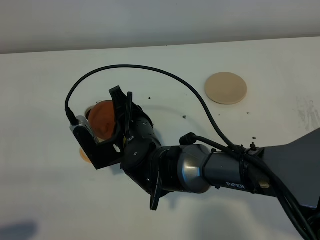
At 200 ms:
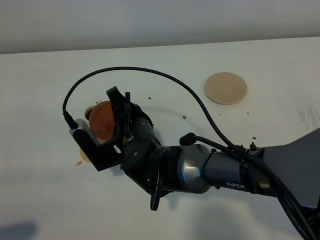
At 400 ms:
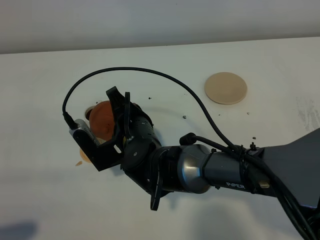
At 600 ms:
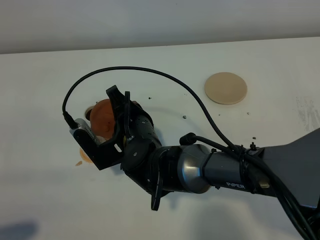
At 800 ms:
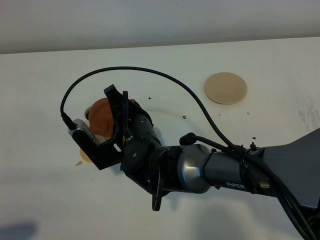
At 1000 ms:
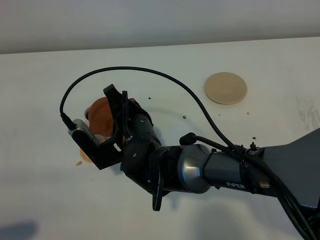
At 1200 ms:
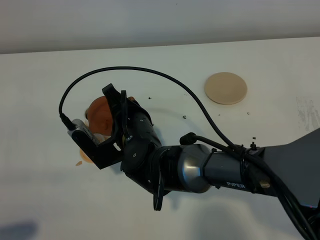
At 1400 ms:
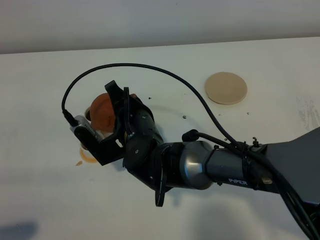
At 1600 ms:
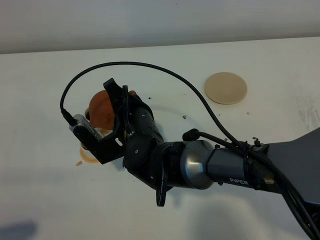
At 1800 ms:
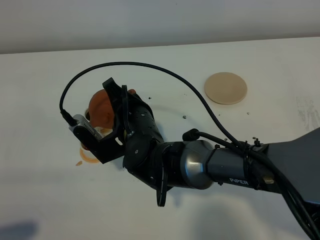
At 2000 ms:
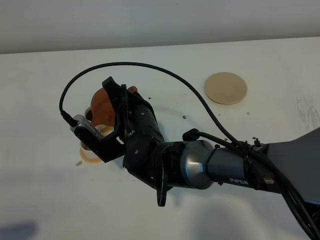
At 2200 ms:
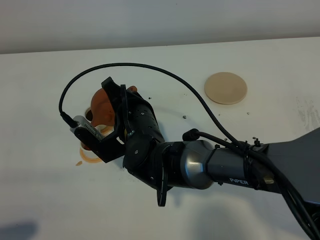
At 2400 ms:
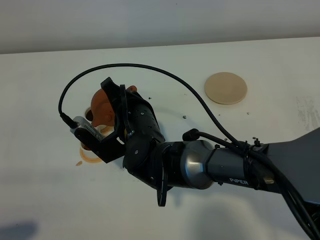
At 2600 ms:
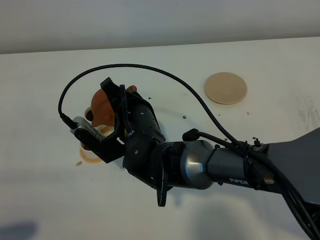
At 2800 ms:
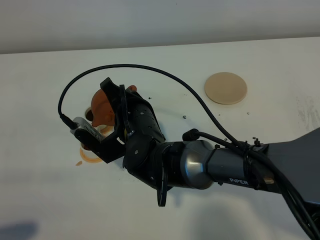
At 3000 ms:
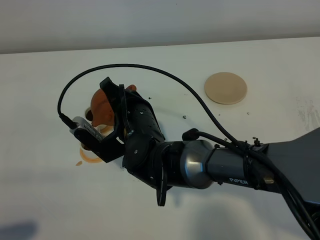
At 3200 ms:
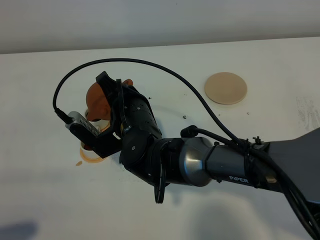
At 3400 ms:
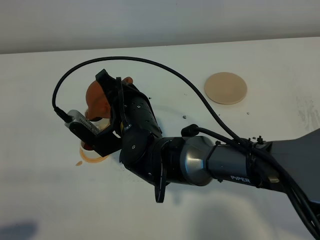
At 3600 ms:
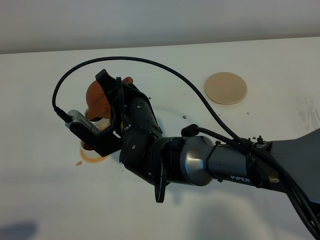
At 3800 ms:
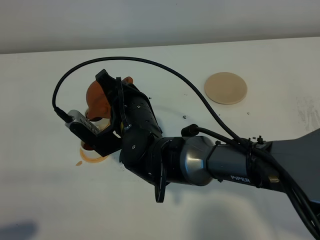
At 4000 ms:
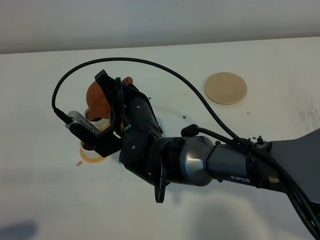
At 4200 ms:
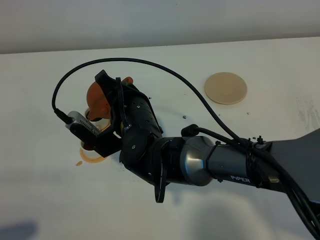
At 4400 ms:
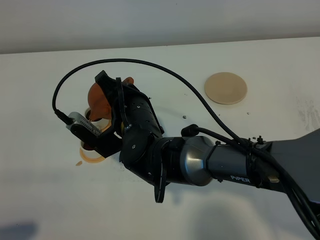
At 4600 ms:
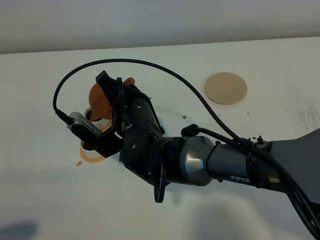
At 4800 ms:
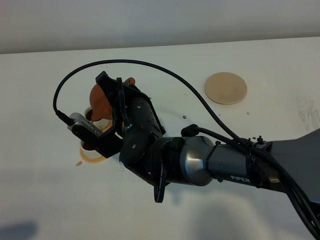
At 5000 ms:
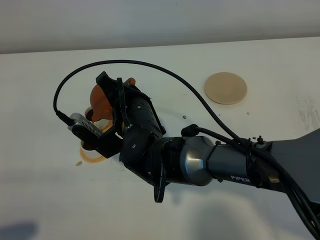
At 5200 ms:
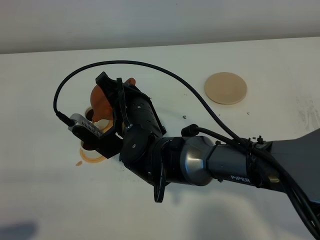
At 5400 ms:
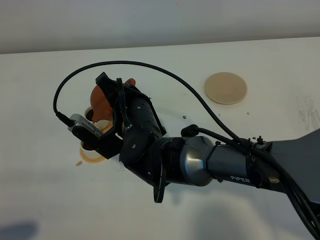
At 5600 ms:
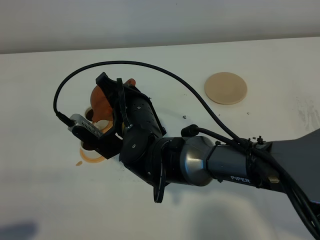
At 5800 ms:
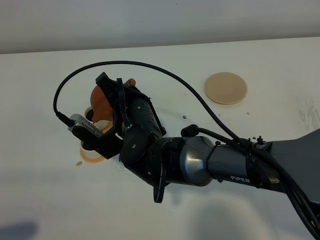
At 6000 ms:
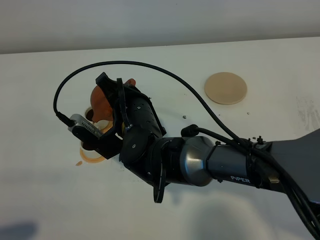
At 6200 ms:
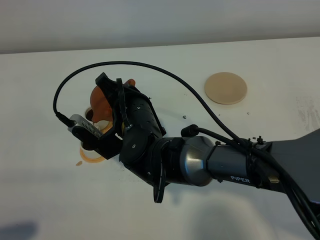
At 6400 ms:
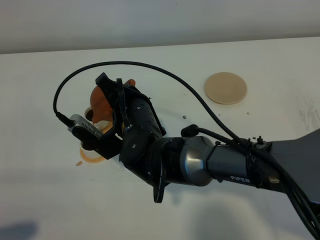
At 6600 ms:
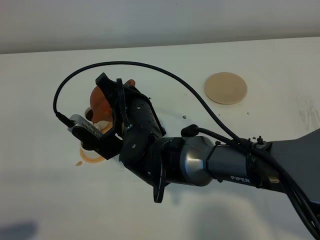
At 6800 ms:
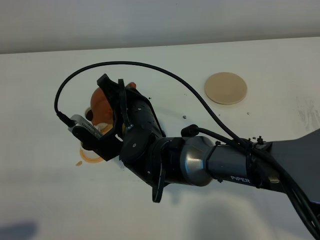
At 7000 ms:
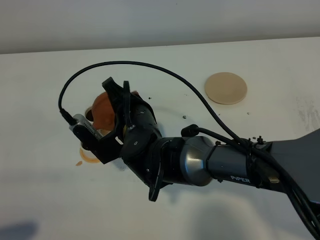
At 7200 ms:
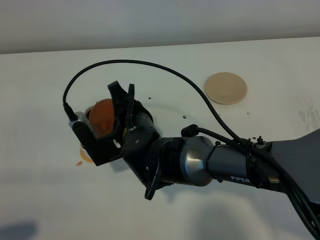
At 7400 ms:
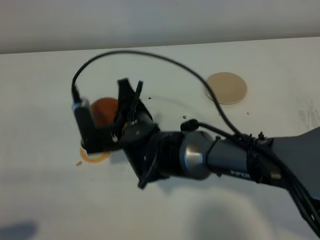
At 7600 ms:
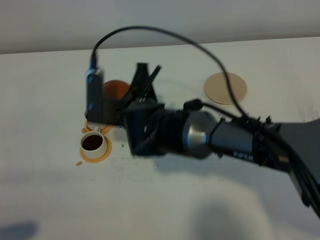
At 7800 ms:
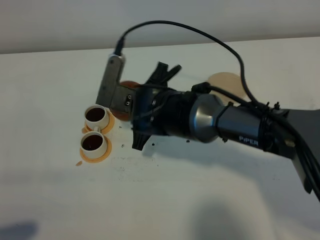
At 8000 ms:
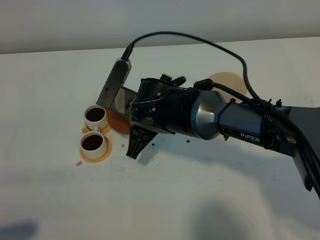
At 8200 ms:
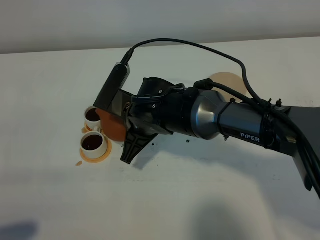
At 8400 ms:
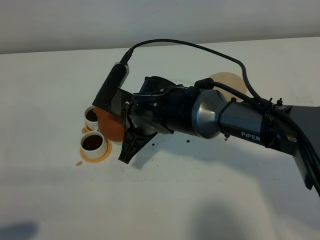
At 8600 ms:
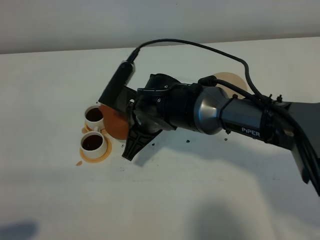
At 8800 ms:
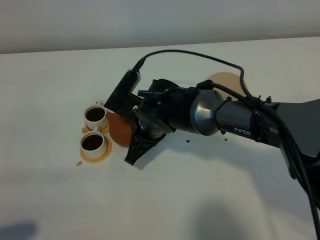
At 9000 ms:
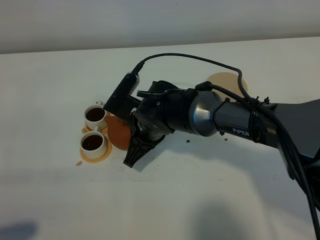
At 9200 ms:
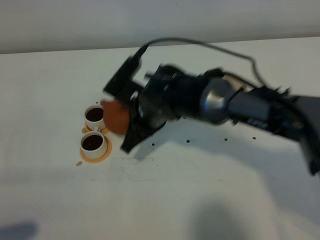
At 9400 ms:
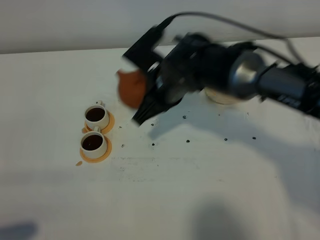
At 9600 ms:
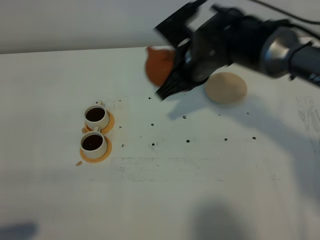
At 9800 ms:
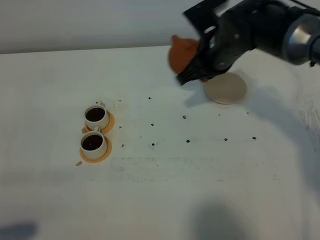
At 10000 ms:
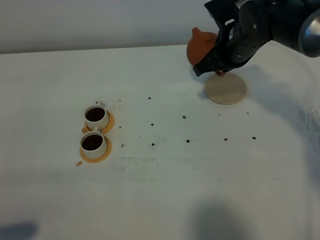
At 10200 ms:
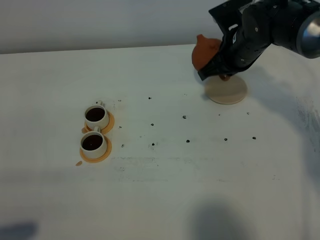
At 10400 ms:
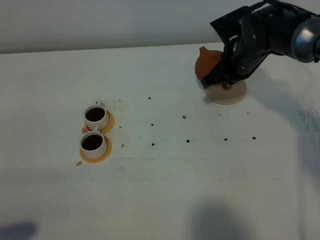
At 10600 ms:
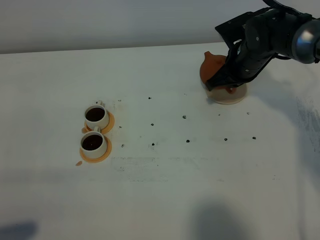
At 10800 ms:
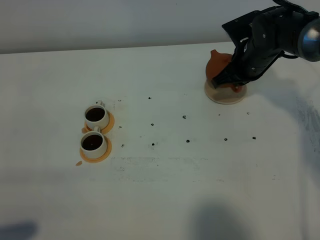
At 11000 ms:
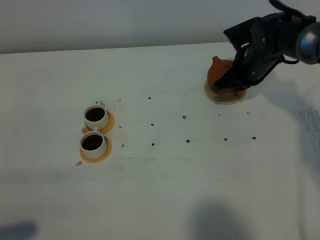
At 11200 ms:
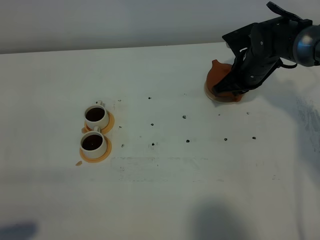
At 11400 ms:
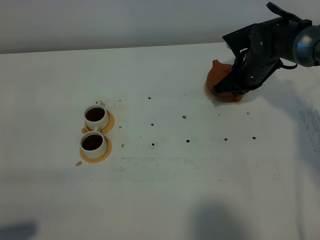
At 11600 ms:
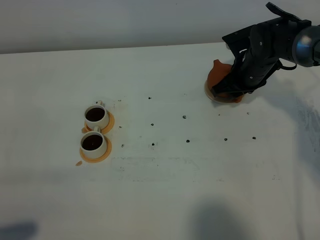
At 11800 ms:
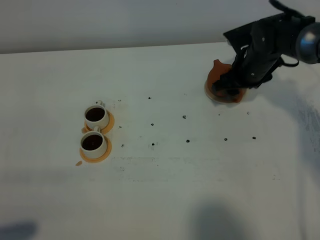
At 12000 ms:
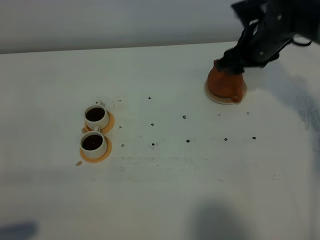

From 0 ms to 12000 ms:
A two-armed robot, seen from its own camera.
Task of the whole recording: grasp the brown teapot and pour the tea into the two white teacups one by one, put the brown teapot back in its original place.
Step, from 0 ms to 6600 ms: Pour tea into the teacup with the right gripper.
From 0 ms to 3000 ms: The grippers move only a little.
From 3000 ms to 6000 ms: Neither gripper changes place.
From 9000 ms to 10400 ms: The right gripper travels to the right and forward by approximately 20 cm.
From 10400 ms to 12000 ms: The right gripper moves upward, roughly 5 cm, and opens its fingers.

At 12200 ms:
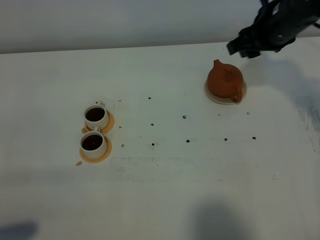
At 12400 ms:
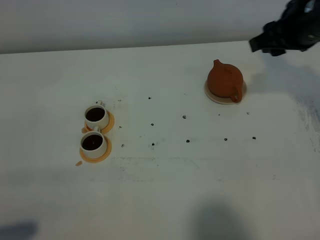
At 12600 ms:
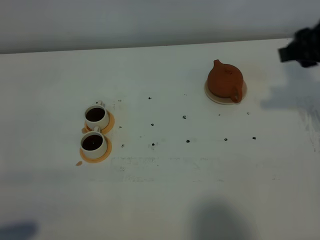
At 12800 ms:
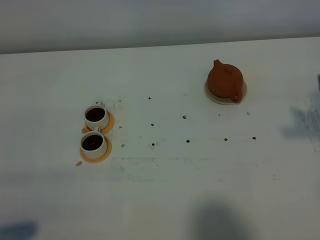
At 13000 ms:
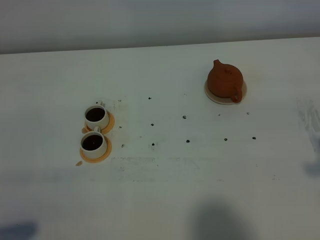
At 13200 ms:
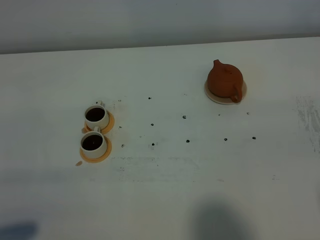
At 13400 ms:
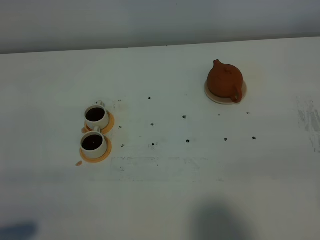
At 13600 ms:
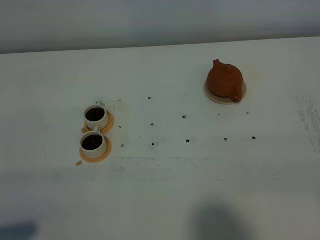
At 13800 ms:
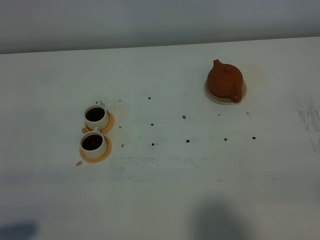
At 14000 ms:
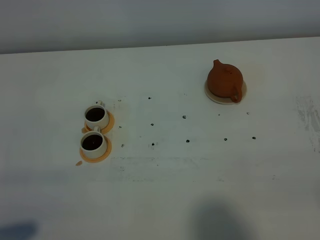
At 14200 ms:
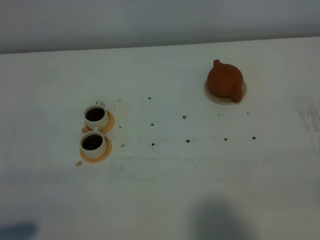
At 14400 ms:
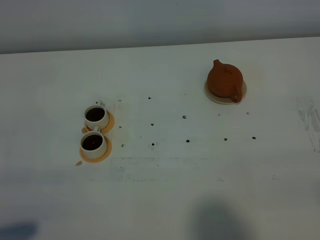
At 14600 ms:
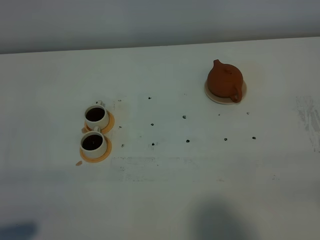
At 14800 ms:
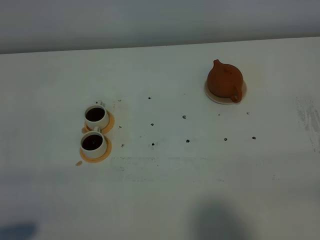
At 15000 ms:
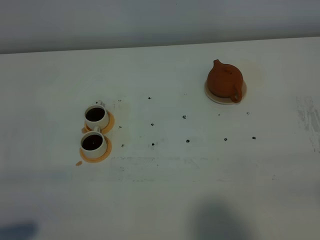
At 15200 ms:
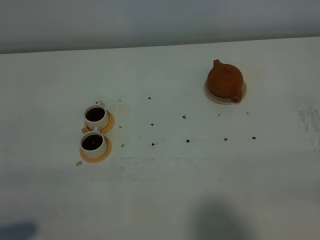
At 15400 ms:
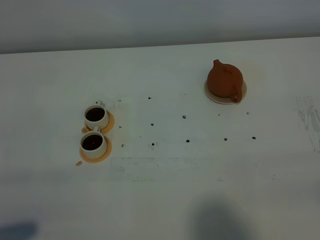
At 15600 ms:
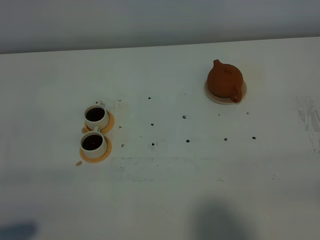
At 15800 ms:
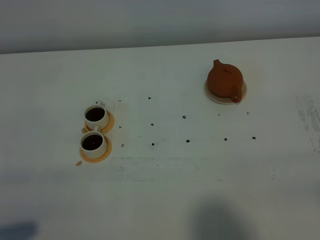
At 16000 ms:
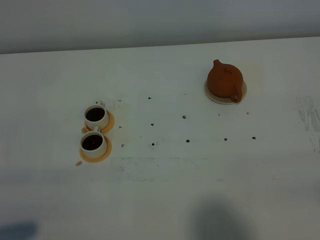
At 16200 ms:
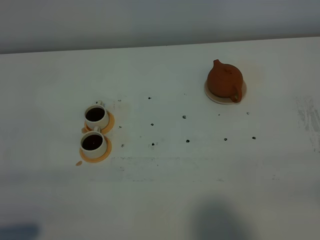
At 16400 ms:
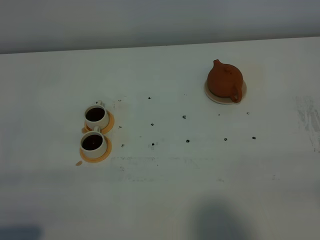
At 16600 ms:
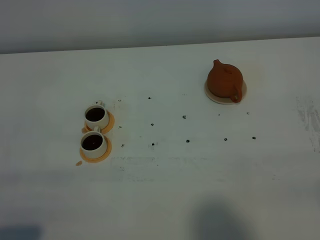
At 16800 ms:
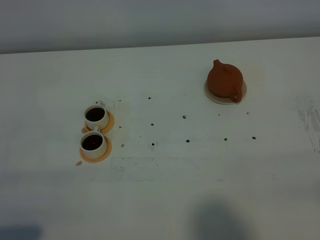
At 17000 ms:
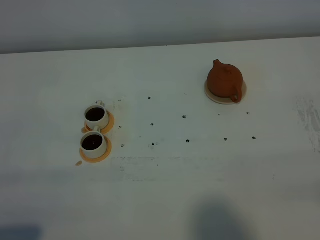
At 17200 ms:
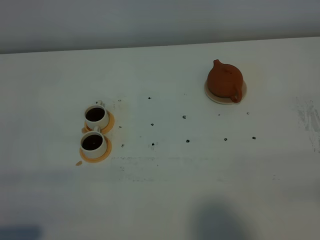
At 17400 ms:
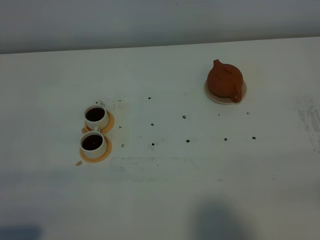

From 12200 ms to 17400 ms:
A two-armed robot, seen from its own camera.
Task of the whole recording: grasp the brown teapot and pour the tea into the two white teacups one by one, put the brown teapot back in its original place.
From 12200 ms to 14000 ms: The right gripper travels backward by approximately 40 cm.
